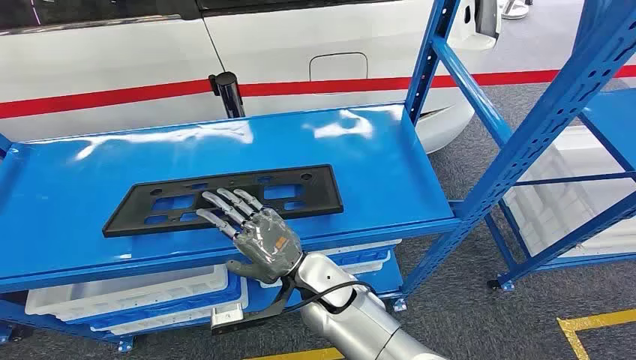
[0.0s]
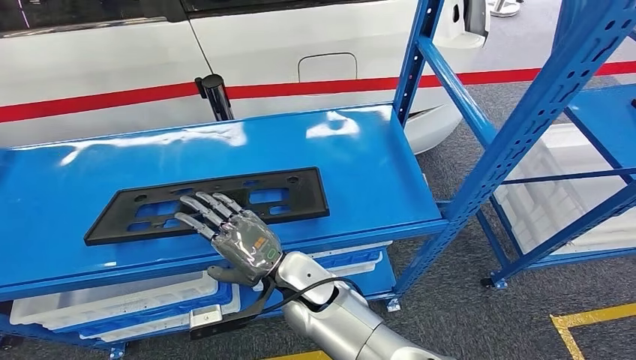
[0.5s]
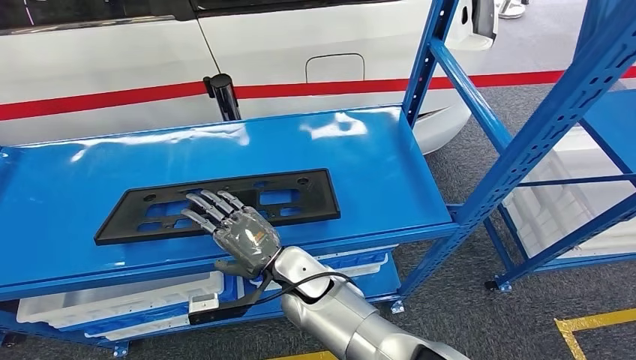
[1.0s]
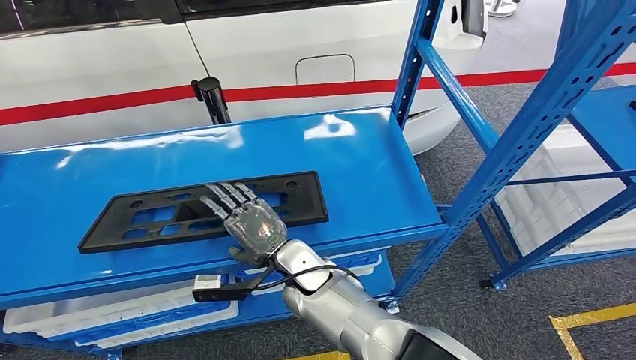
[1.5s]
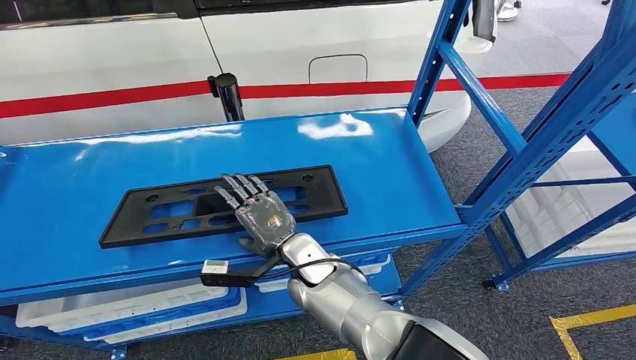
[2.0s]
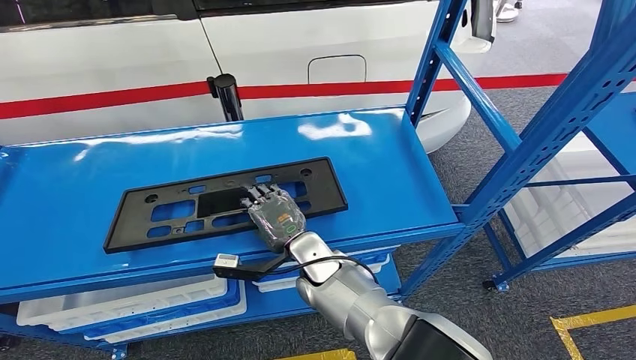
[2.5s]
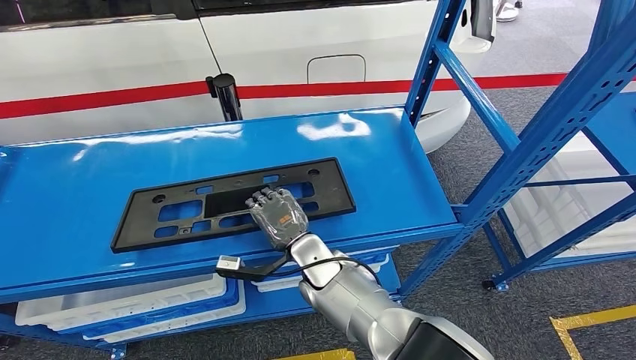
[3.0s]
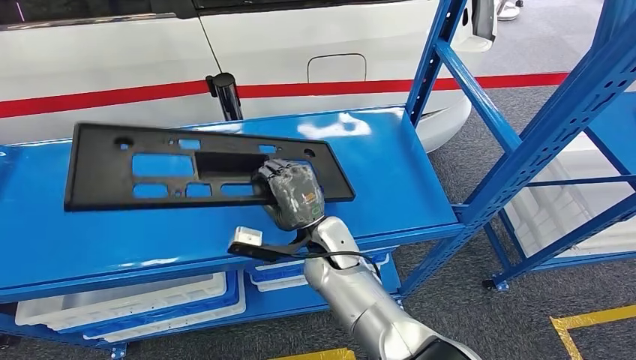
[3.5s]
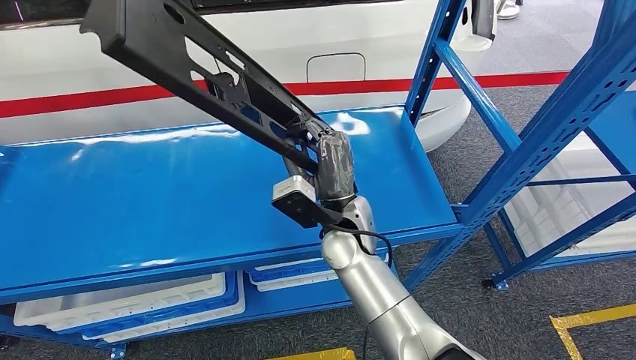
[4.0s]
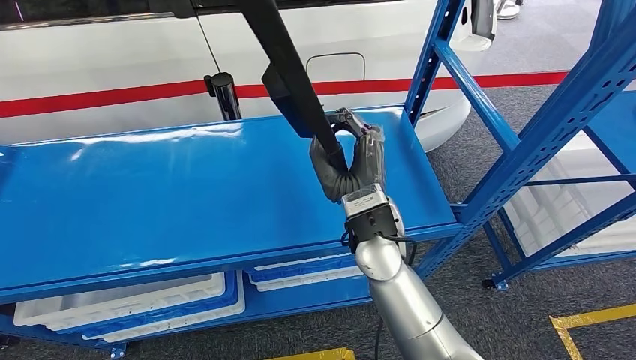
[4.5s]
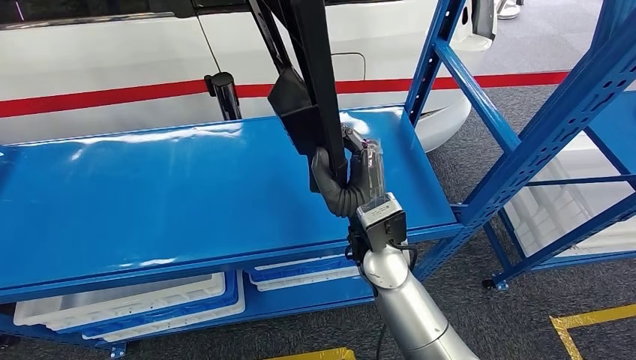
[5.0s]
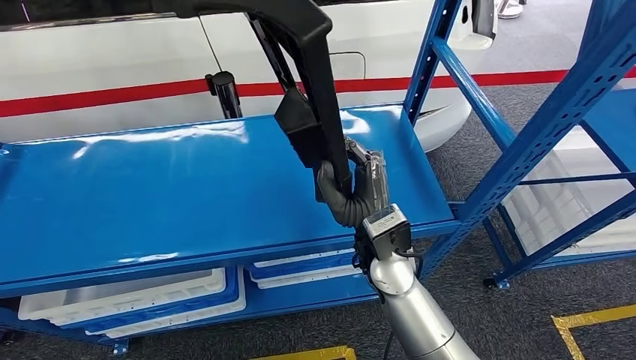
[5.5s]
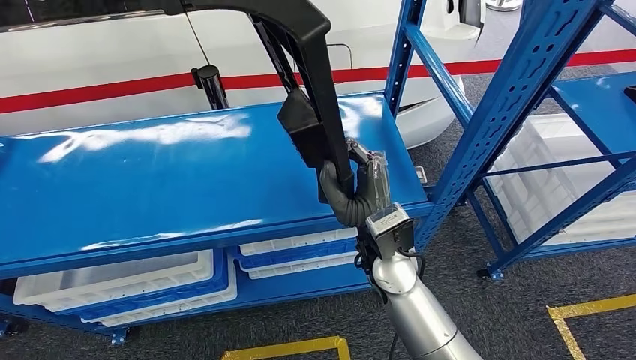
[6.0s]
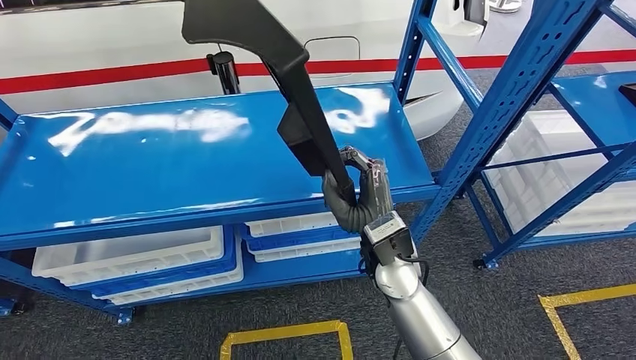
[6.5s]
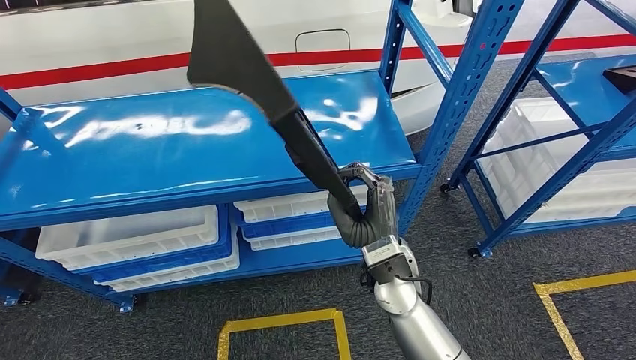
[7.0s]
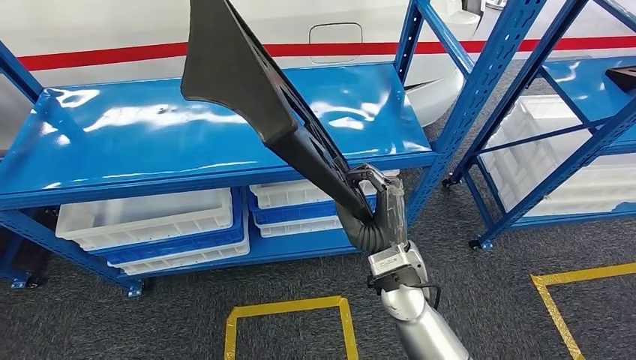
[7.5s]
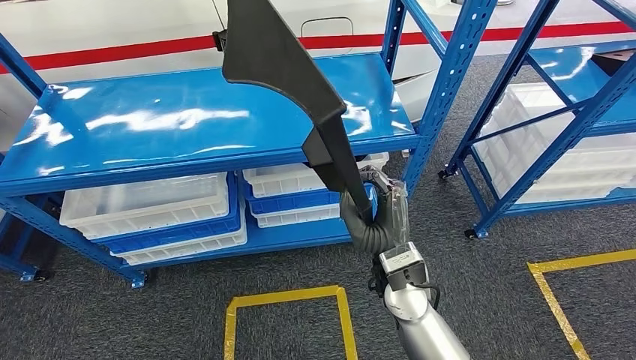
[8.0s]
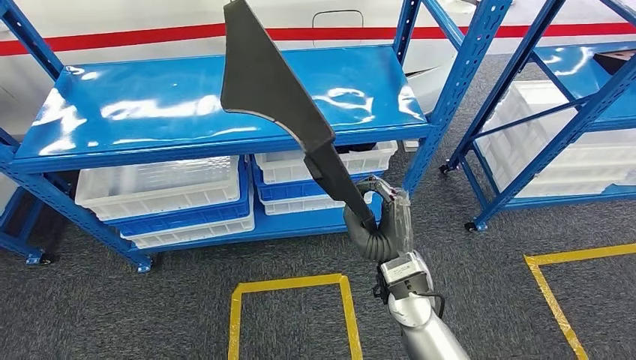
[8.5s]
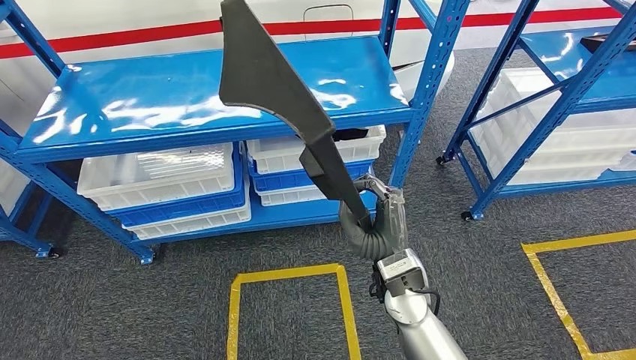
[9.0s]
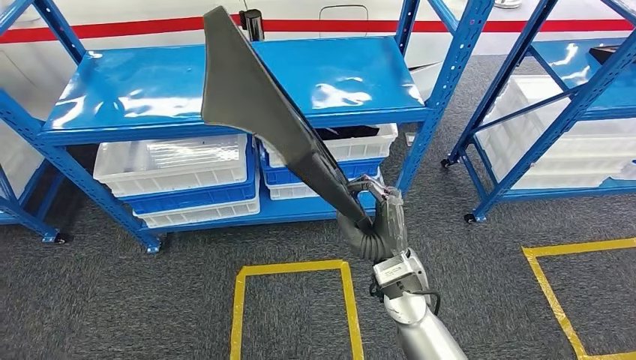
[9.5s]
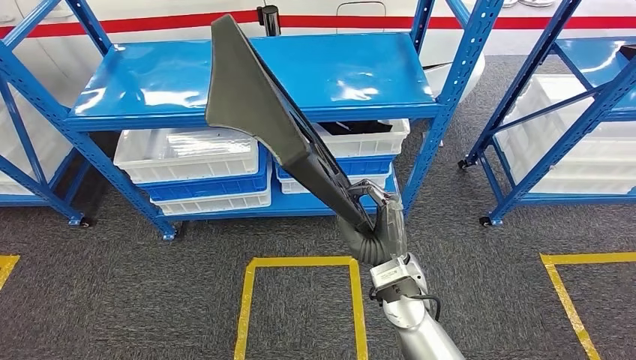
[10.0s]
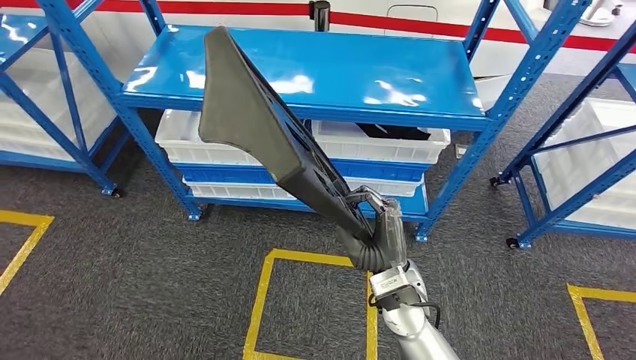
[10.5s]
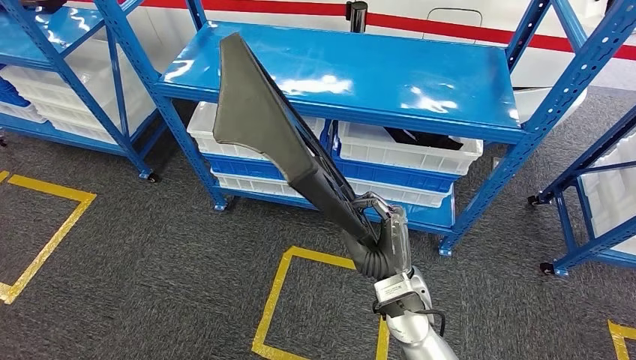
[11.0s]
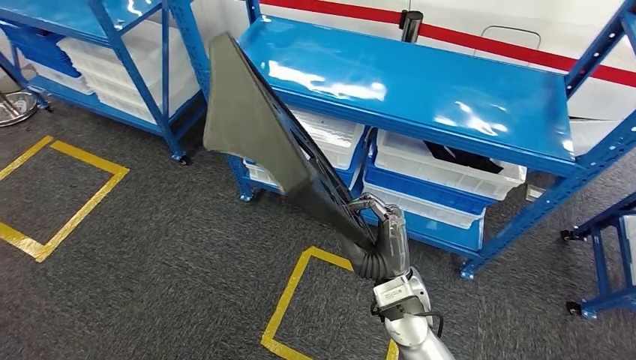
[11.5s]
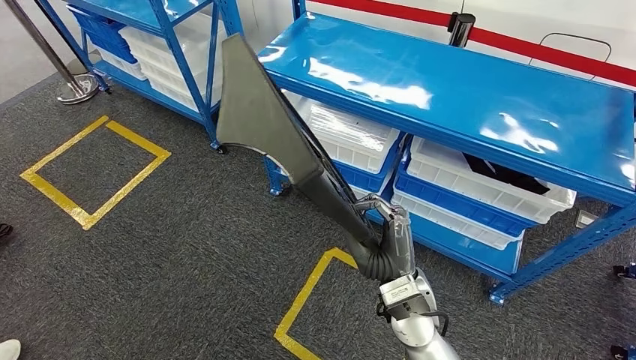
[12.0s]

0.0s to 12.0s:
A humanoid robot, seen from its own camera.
Step, 0.0s to 6.0s: Pick up the large material from the shelf.

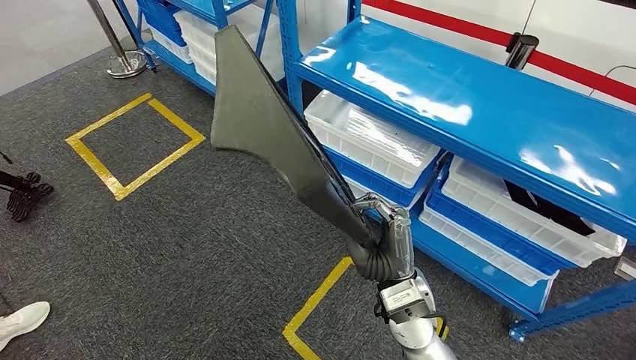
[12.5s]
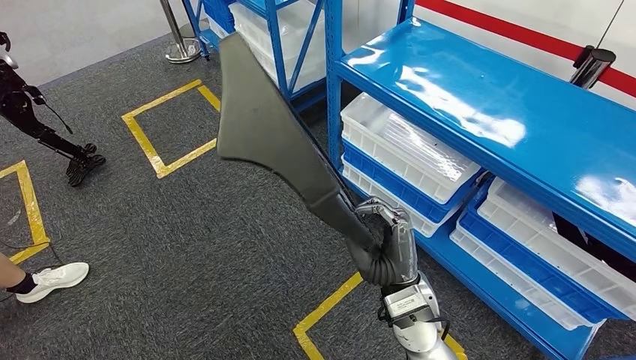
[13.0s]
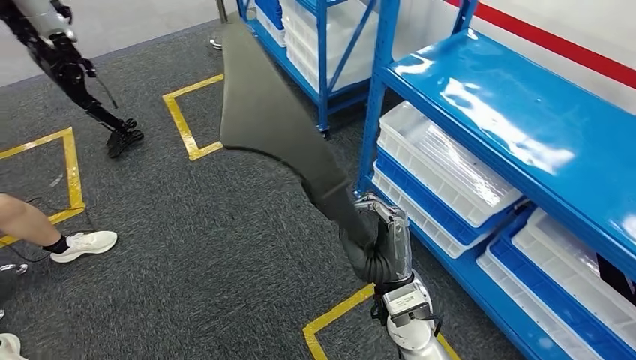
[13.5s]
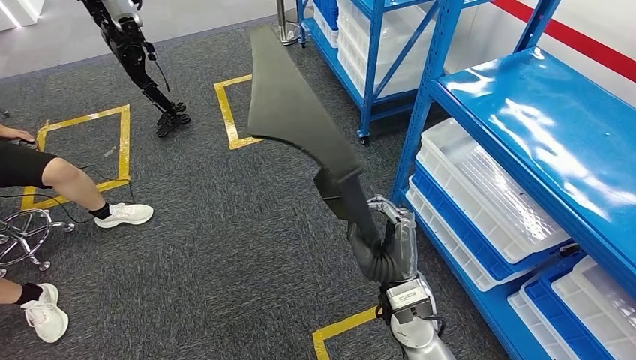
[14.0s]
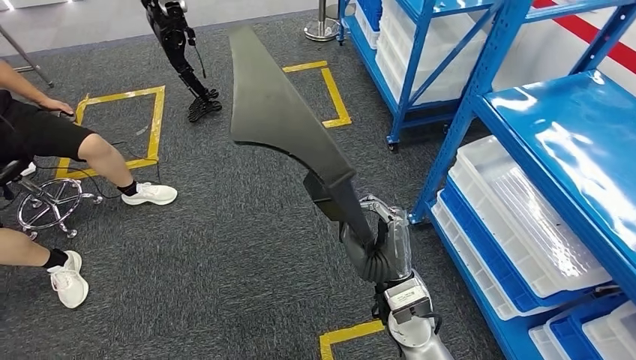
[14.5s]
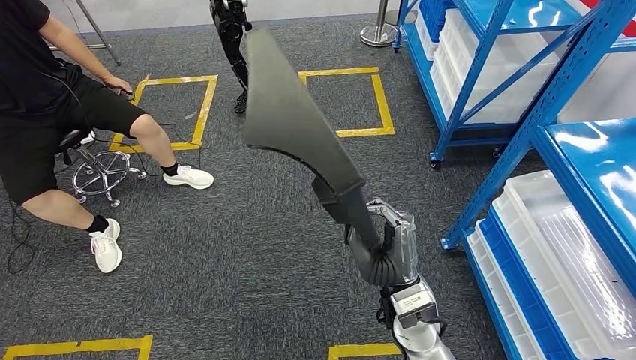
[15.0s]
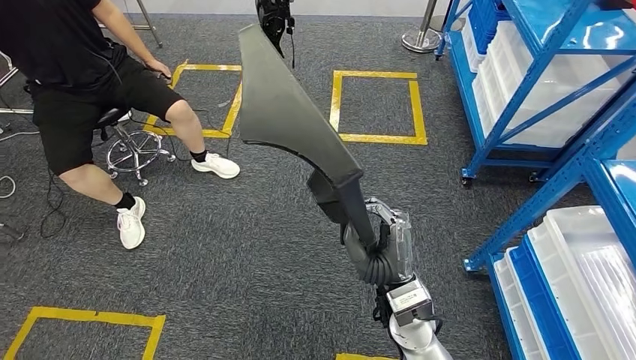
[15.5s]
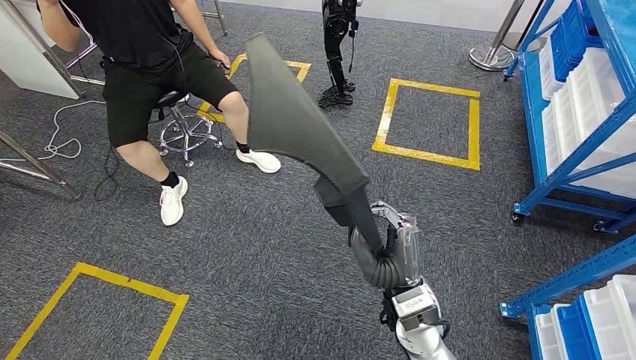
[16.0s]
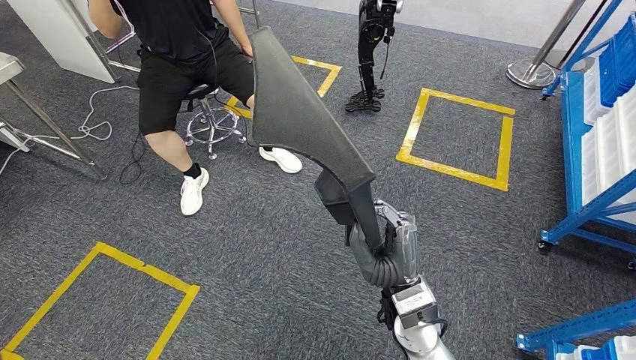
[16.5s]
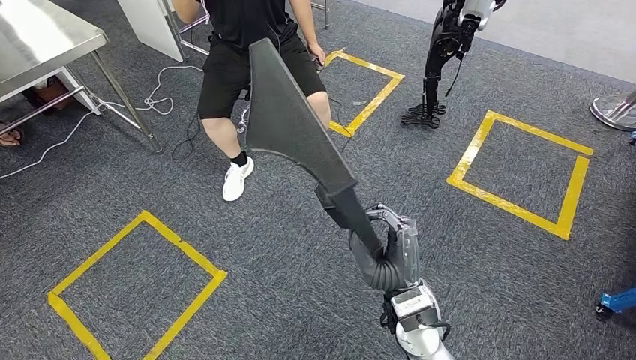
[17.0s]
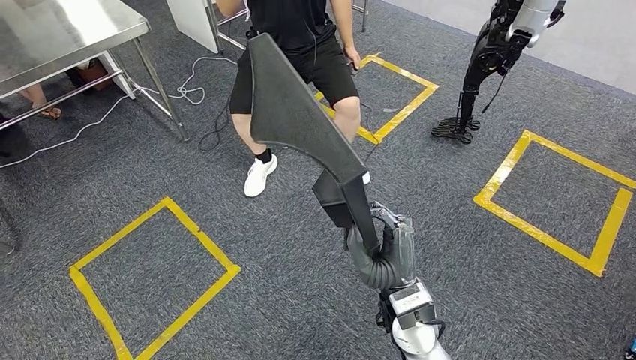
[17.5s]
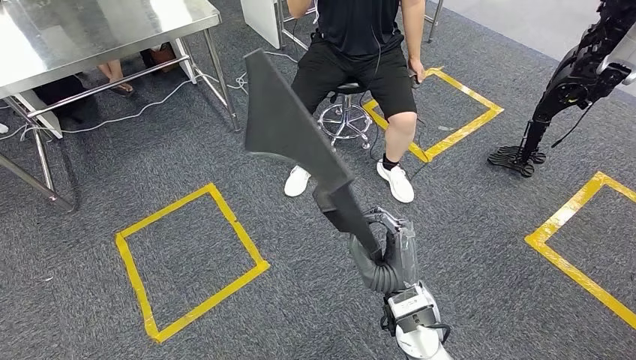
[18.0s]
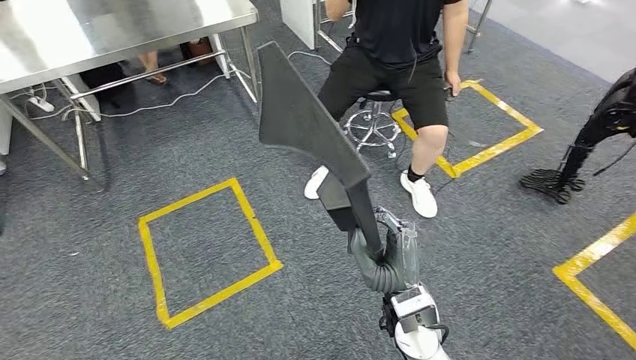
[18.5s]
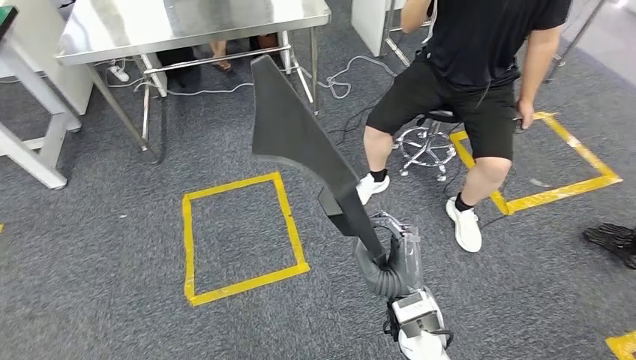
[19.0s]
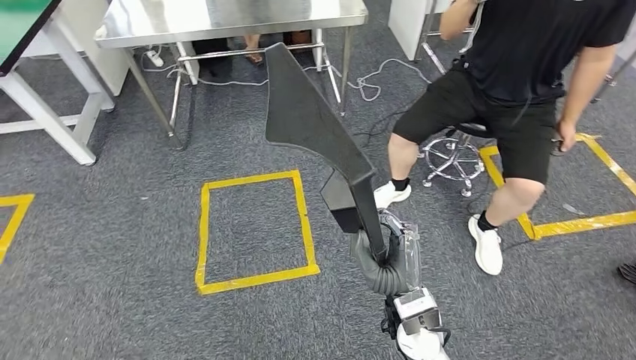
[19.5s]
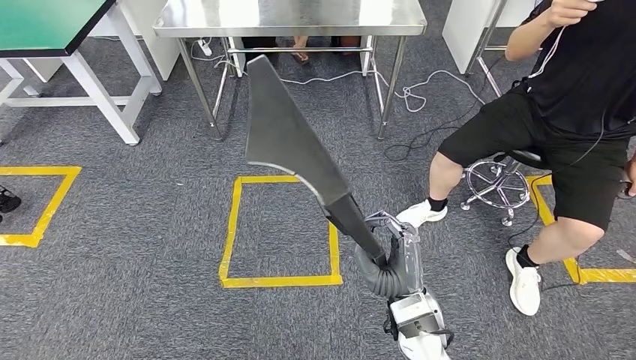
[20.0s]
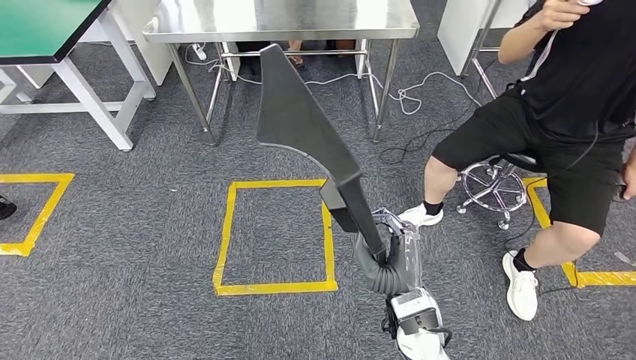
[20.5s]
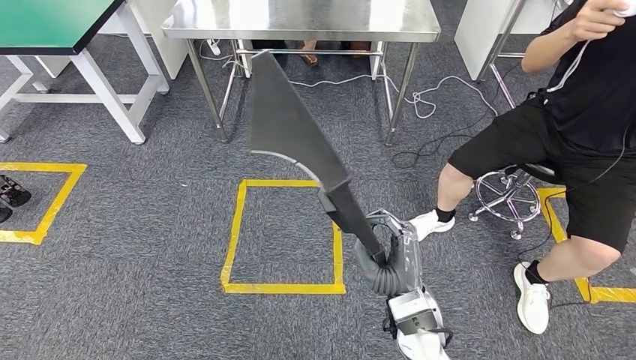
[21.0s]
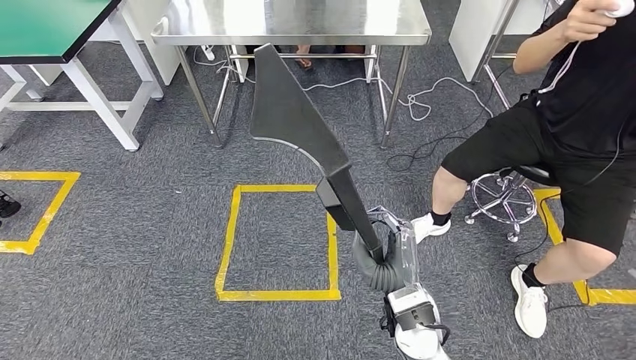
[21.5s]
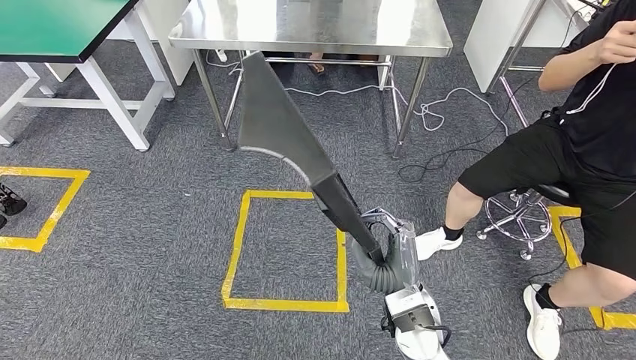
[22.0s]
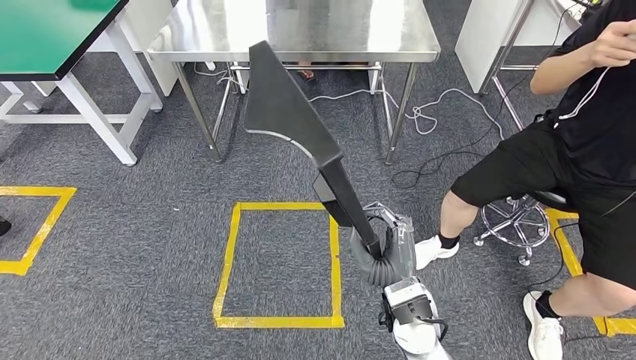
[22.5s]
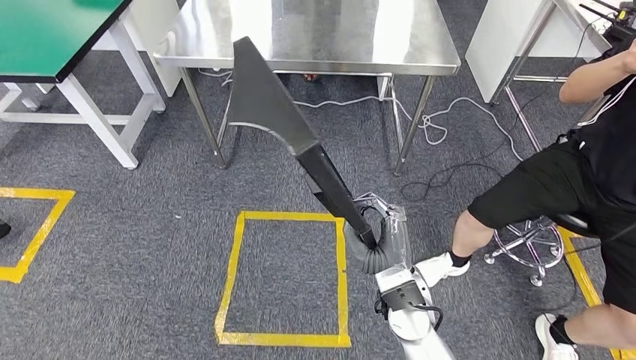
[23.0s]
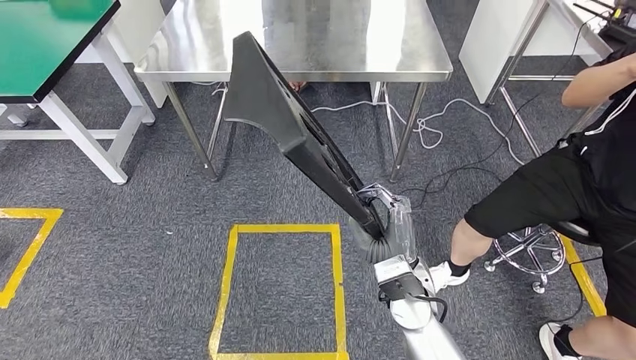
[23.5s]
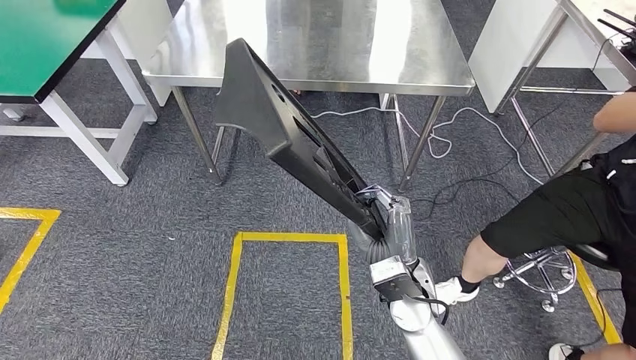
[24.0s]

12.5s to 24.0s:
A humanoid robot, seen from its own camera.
Step, 12.5s to 23.5s: Move the large material to the workbench.
